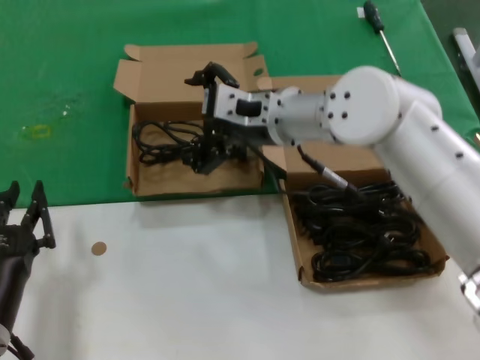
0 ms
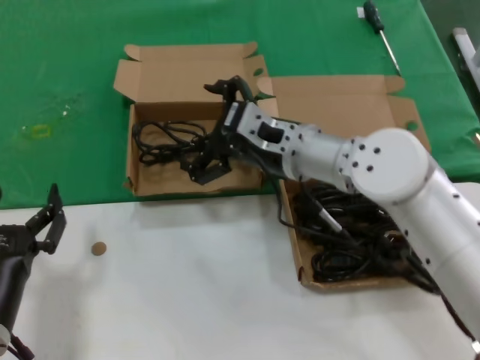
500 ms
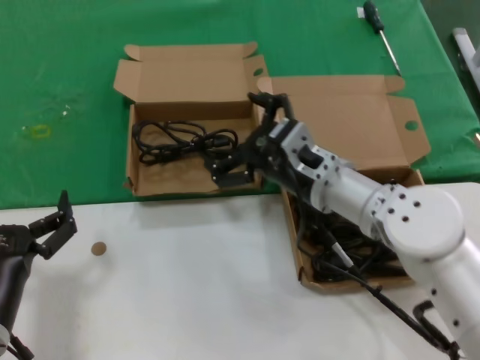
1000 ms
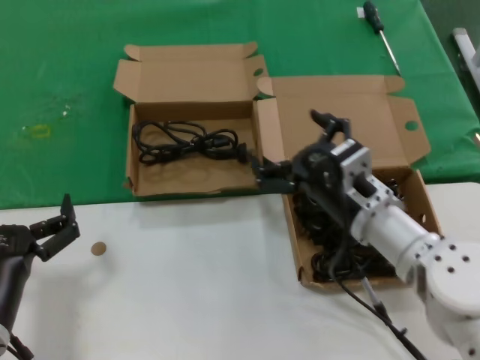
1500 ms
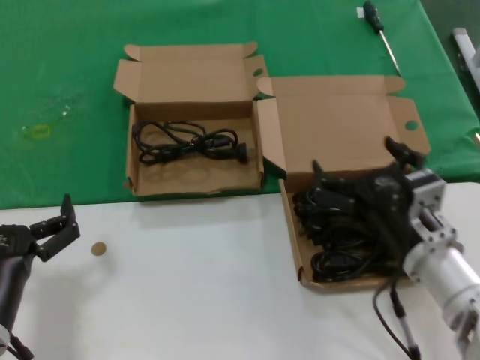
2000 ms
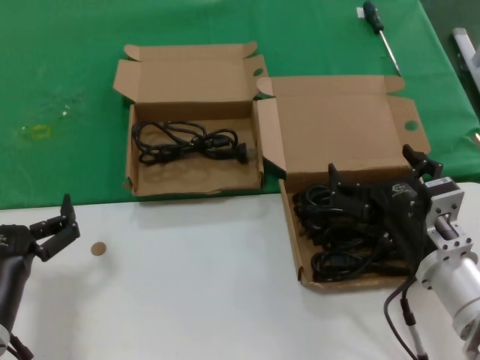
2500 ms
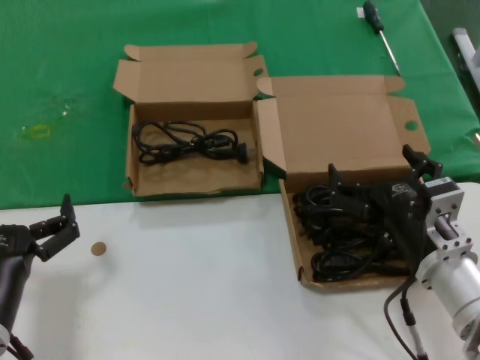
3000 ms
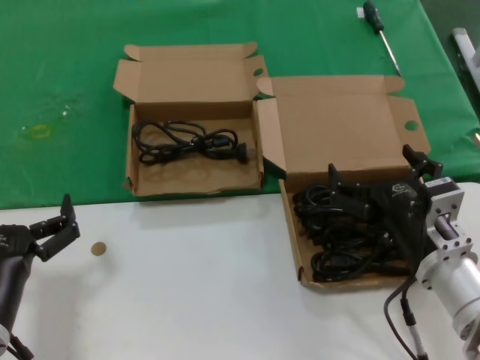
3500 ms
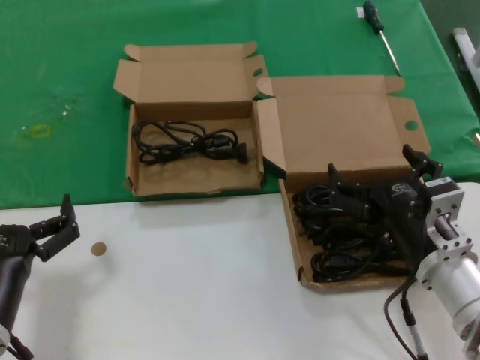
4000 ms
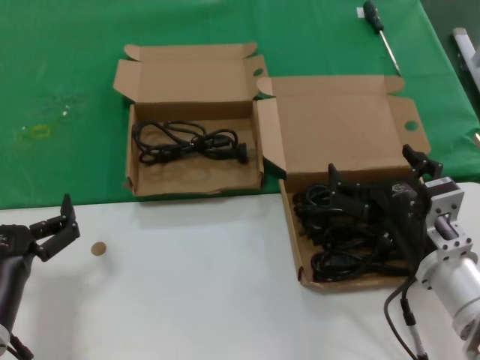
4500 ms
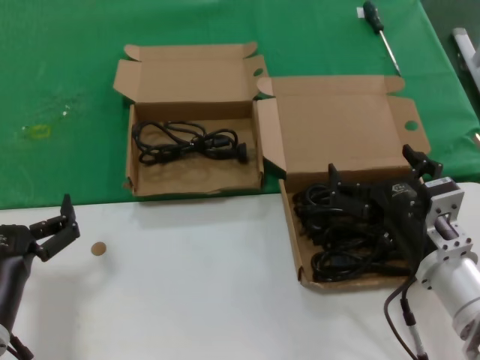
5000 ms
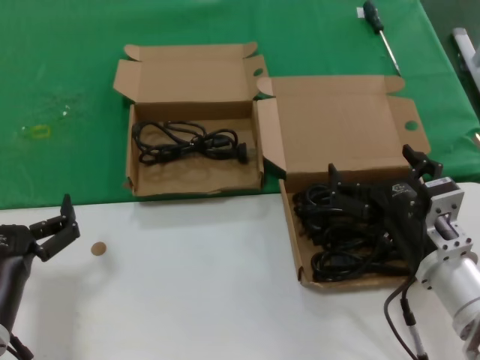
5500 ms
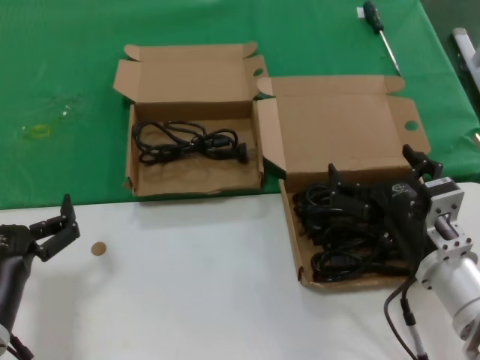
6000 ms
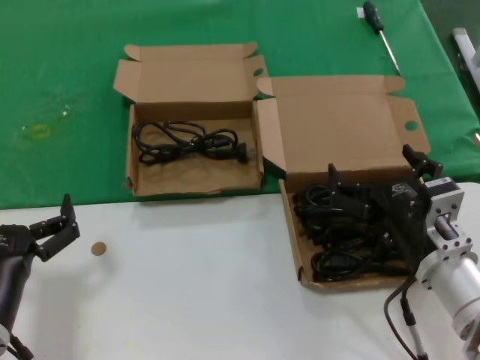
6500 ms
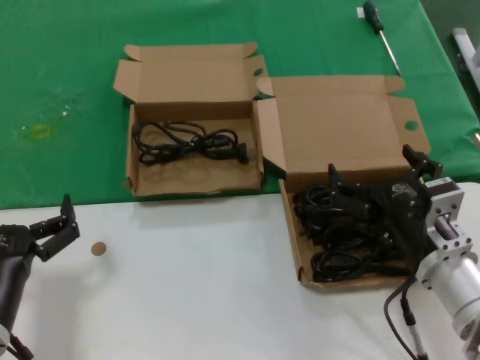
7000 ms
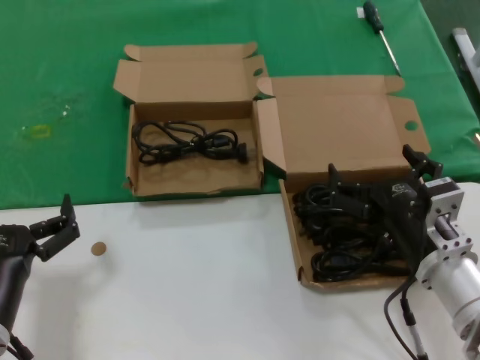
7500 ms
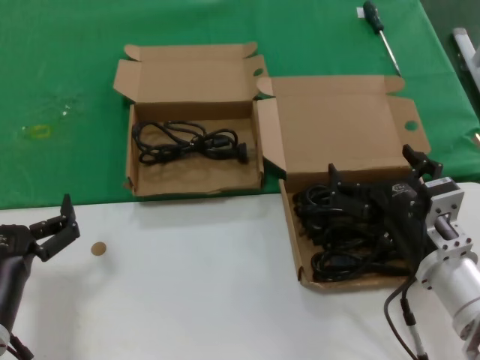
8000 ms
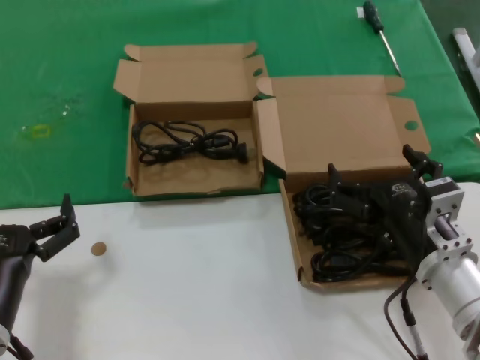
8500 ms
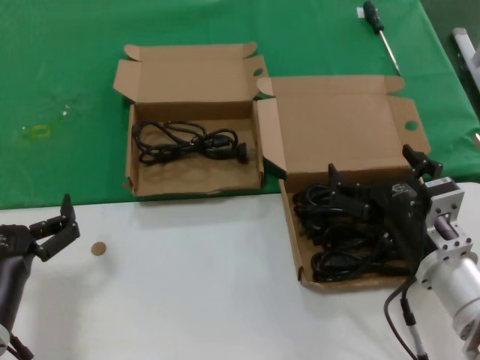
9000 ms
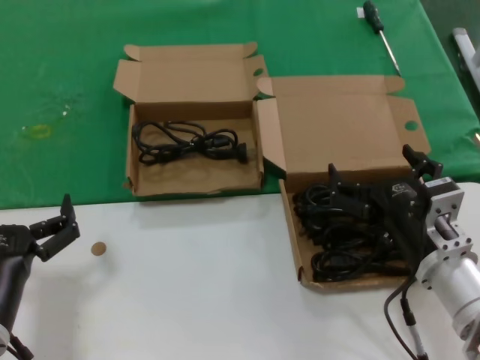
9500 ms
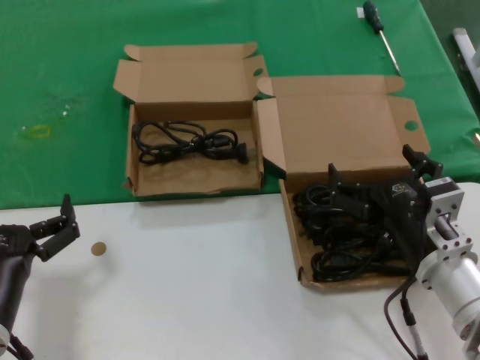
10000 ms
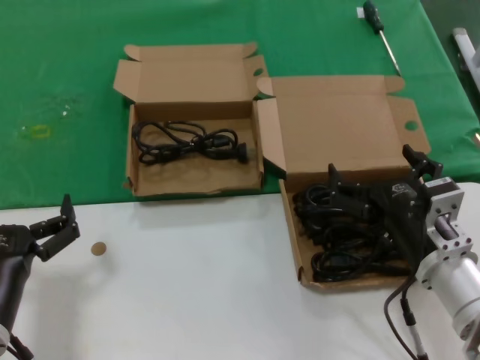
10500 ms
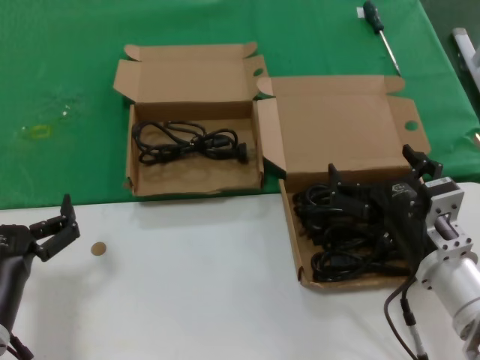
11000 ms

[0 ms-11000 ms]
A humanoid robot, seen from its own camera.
Task of the whole recording: take the parts from the box containing them and put them into an empty box.
0 ms to 2000 ms: The right hand moves backward, downward and to the right, approximately 25 cm.
2000 ms to 3500 ms: The hands stay close to where they were, moving slightly.
3500 ms to 11000 ms: Both hands stay put.
